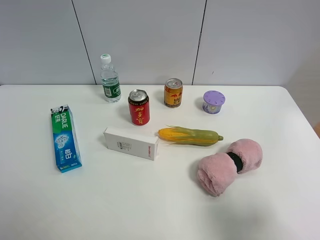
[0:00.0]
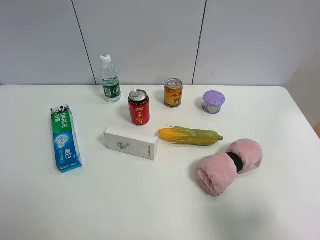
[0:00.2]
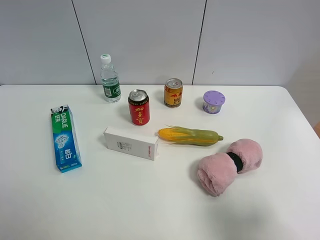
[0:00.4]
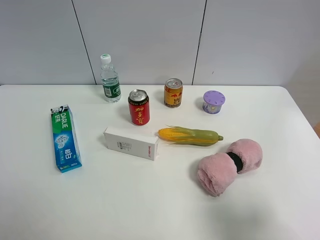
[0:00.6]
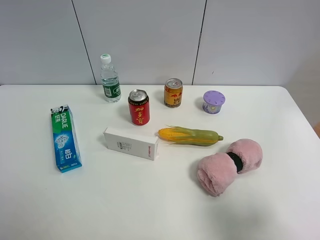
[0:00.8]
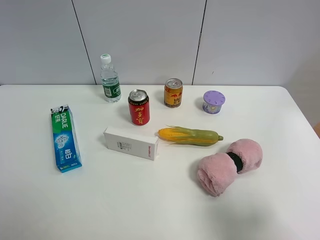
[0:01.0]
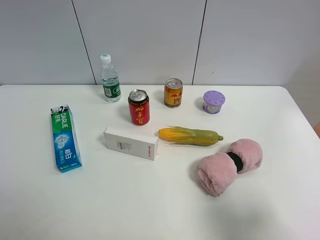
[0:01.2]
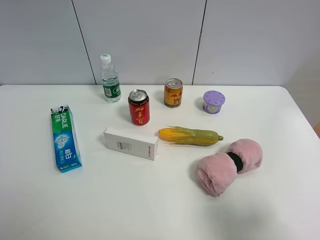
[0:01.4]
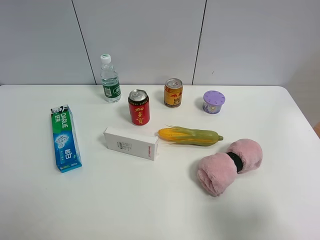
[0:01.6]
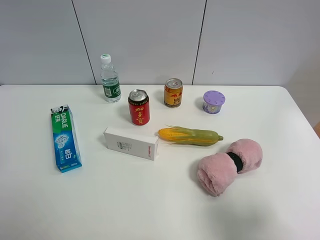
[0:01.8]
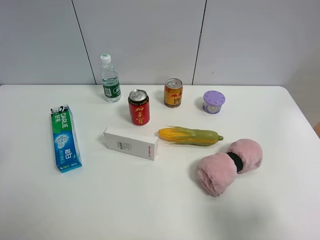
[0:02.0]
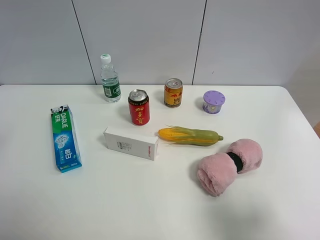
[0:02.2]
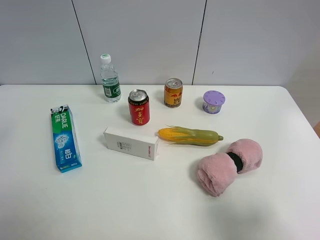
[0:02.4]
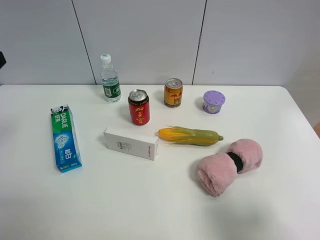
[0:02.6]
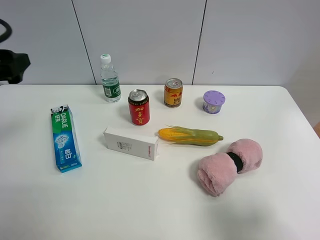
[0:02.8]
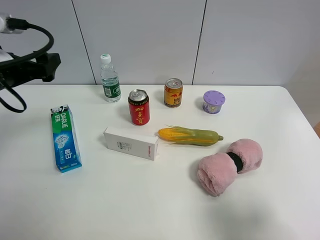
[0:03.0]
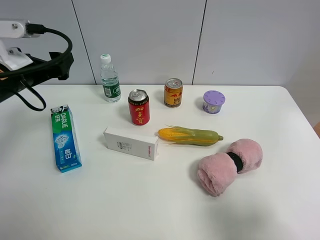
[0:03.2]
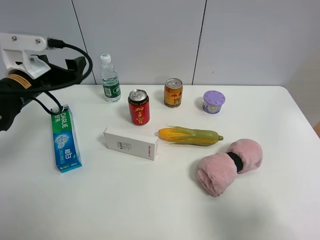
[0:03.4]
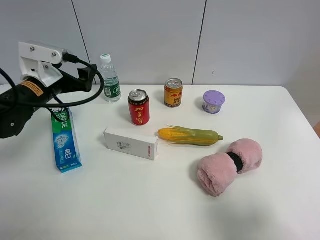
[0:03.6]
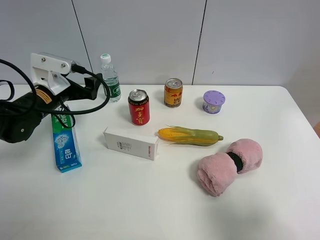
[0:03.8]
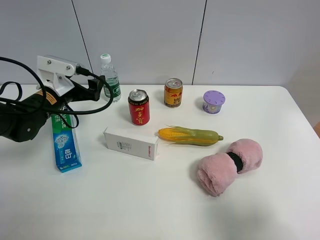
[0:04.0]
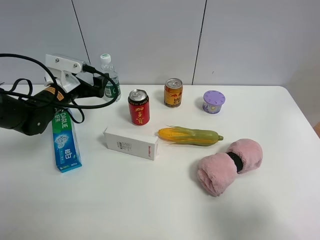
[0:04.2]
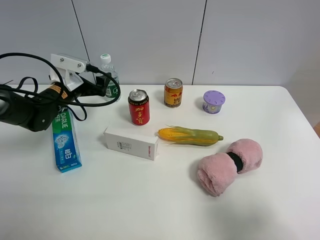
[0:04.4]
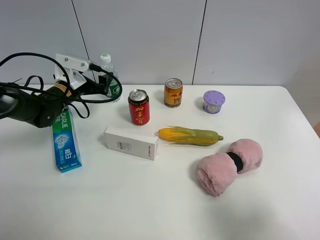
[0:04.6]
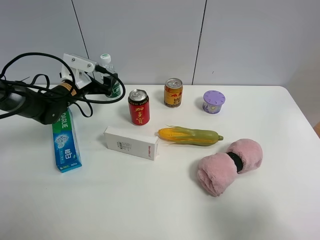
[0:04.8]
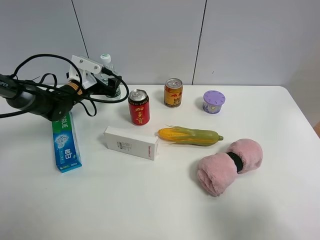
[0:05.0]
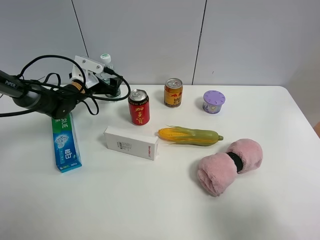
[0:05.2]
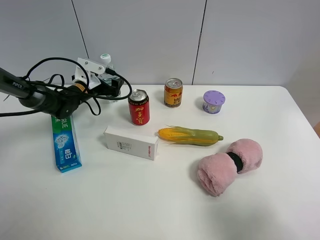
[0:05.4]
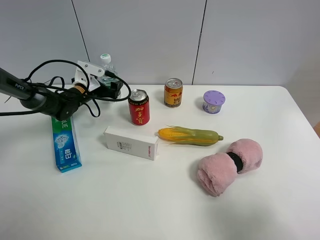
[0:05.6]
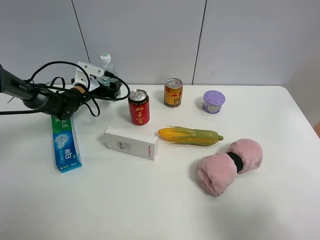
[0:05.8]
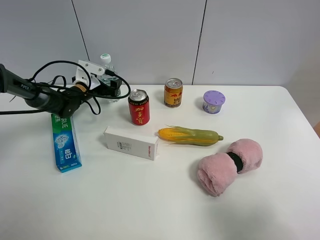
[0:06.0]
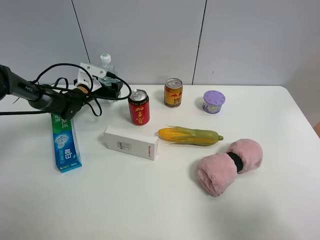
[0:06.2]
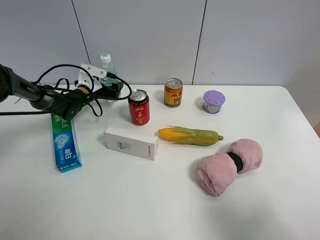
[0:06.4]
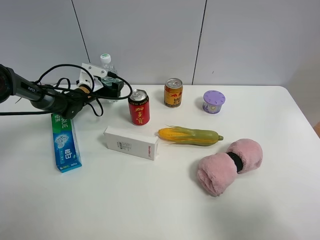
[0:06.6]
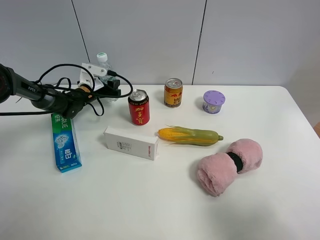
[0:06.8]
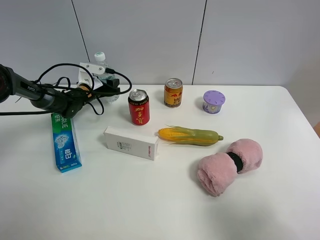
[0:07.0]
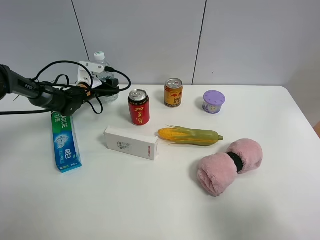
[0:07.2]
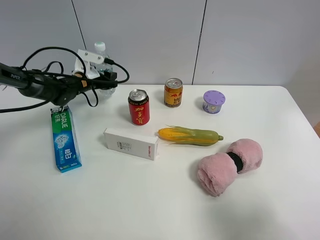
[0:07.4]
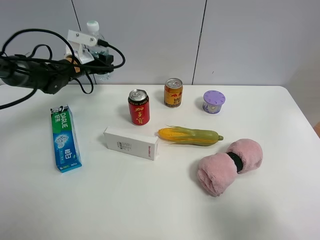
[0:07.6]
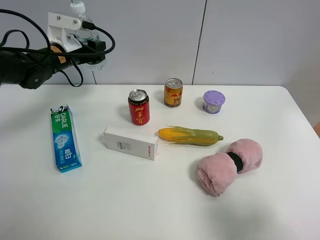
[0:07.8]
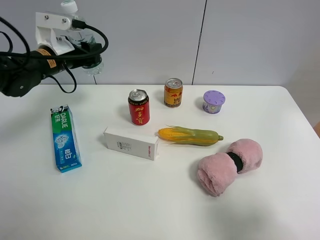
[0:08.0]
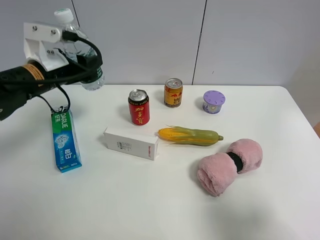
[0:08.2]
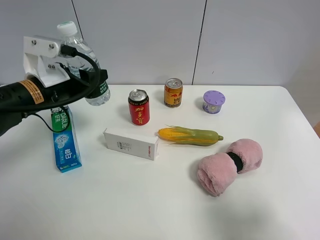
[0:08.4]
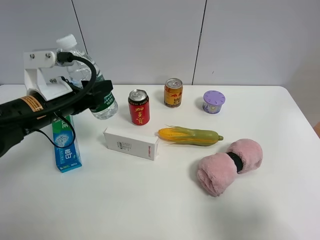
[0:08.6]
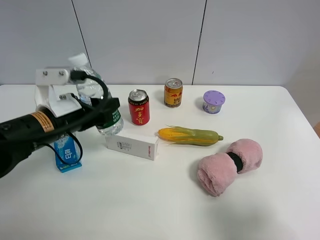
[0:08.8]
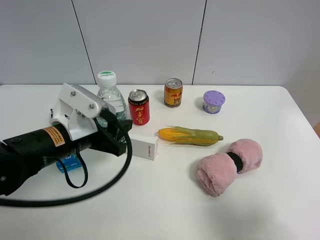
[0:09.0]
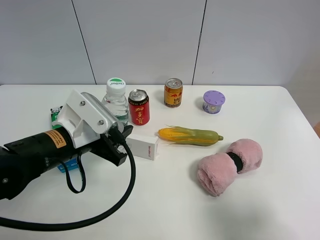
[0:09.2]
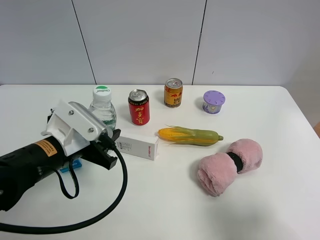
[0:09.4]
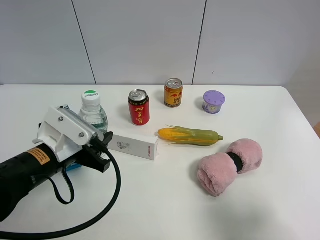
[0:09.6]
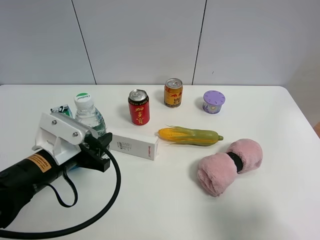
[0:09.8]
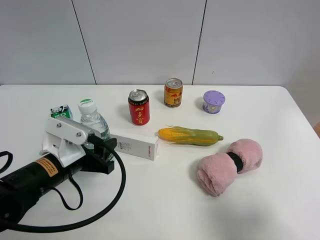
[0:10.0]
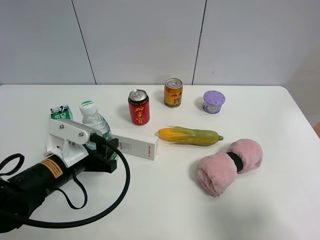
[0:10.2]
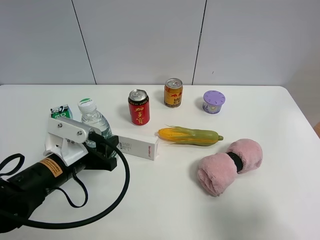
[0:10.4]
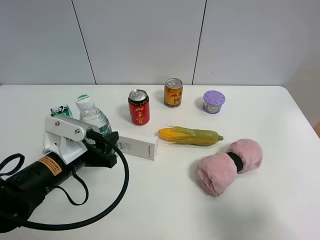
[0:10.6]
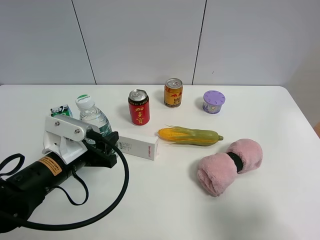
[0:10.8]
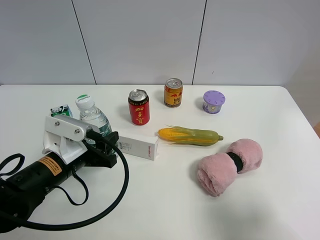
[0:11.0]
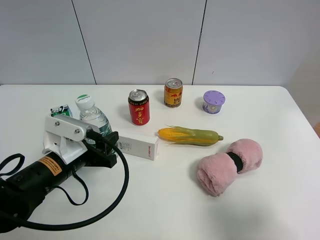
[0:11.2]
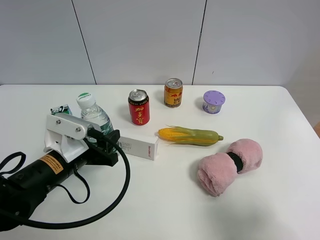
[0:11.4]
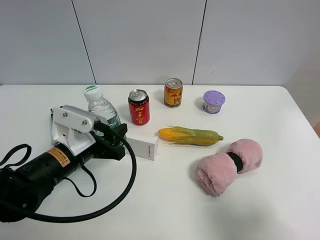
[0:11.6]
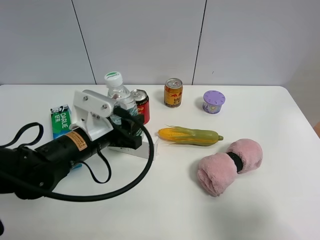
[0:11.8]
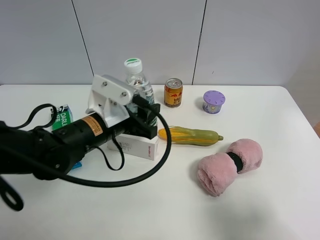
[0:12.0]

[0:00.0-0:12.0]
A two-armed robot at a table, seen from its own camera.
Task of the whole recording: the gripper move the object.
Step, 0:00.0 to 0:06.8: Grasp the YiBao mineral water with the left gripper.
0:01.6 to 0:03.0: The left gripper goes about 25 cm forward.
0:03.0 to 0:04.4: The left gripper is displaced downward and forward by approximately 15 cm.
0:04.4 to 0:06.0: The left gripper shifts roughly 10 cm forward and downward.
0:06.0 to 0:07.6: The left gripper moves upward, approximately 10 cm, and closes its fingers.
0:07.6 to 0:09.0: The left gripper moves backward, roughly 25 cm.
0:09.0 to 0:10.4: The left gripper goes some 5 cm downward.
0:10.4 to 0:12.0: The left gripper shifts roughly 10 cm to the right, forward and upward.

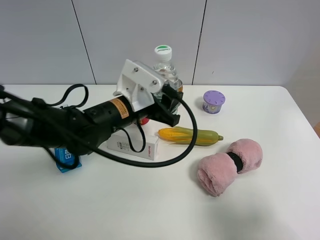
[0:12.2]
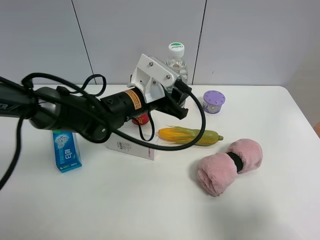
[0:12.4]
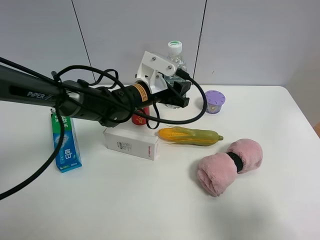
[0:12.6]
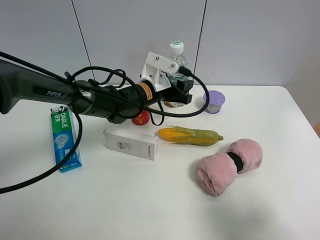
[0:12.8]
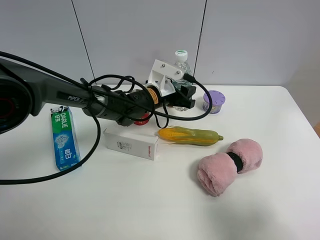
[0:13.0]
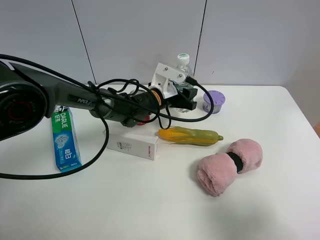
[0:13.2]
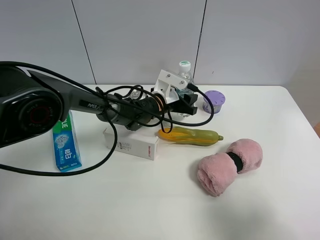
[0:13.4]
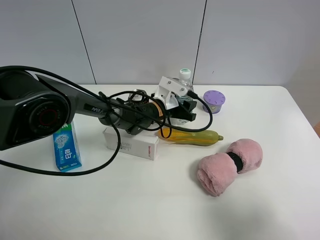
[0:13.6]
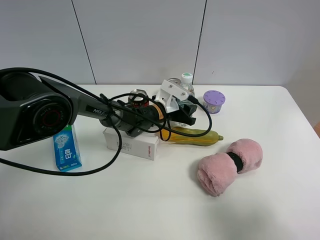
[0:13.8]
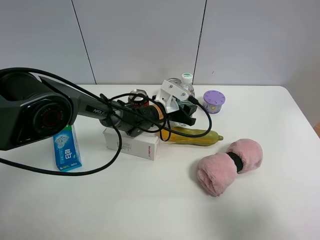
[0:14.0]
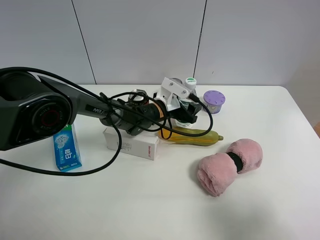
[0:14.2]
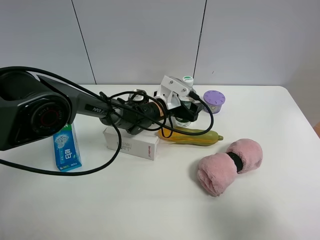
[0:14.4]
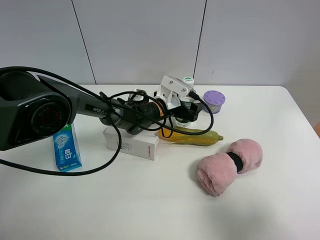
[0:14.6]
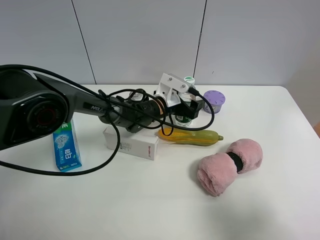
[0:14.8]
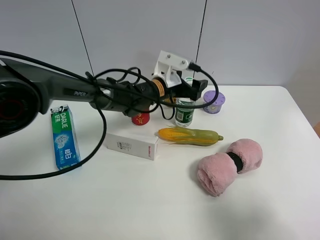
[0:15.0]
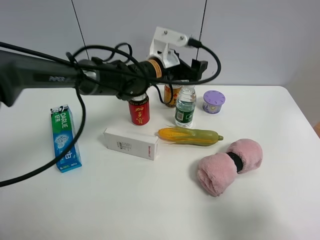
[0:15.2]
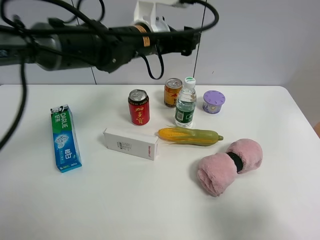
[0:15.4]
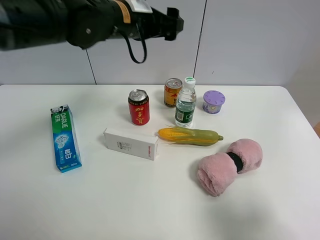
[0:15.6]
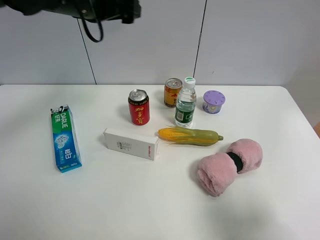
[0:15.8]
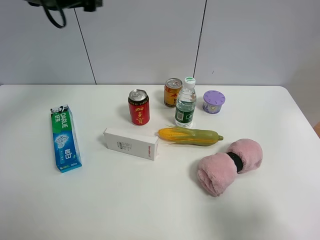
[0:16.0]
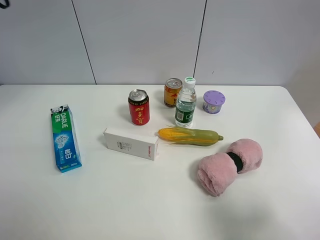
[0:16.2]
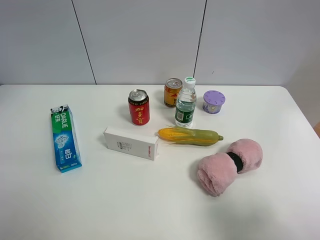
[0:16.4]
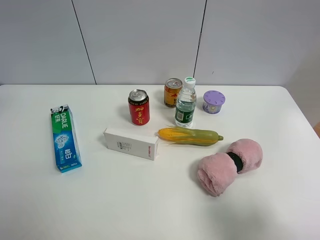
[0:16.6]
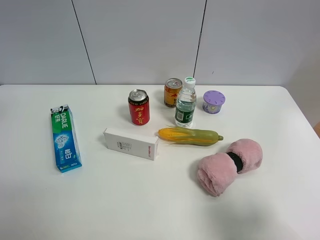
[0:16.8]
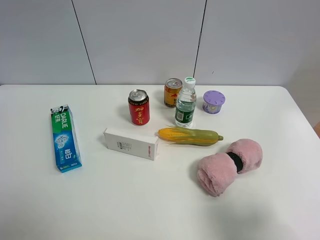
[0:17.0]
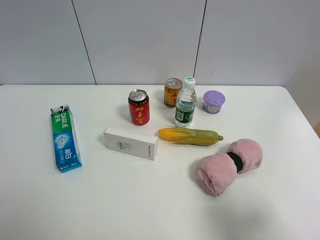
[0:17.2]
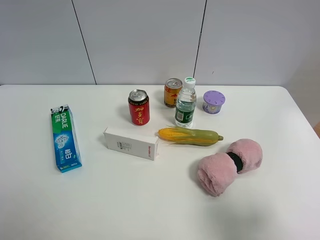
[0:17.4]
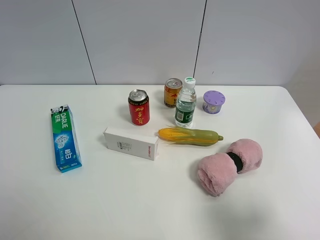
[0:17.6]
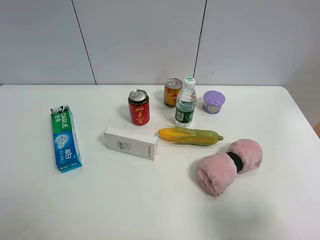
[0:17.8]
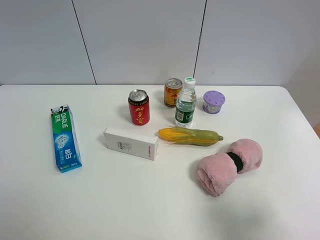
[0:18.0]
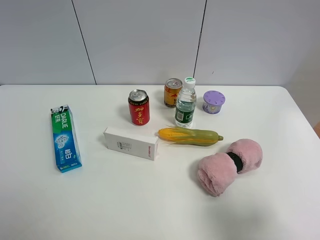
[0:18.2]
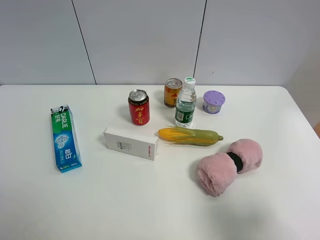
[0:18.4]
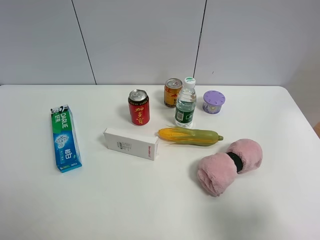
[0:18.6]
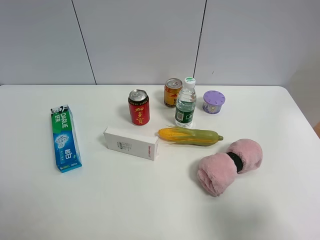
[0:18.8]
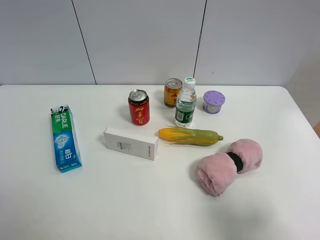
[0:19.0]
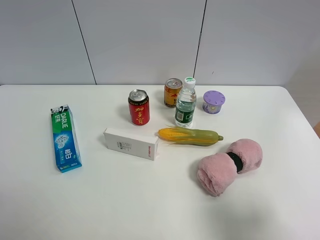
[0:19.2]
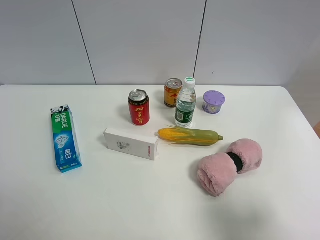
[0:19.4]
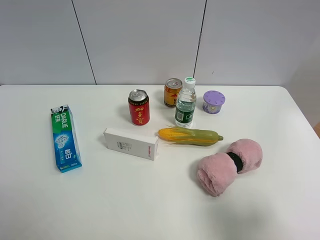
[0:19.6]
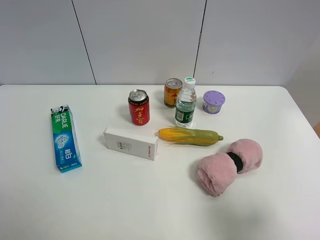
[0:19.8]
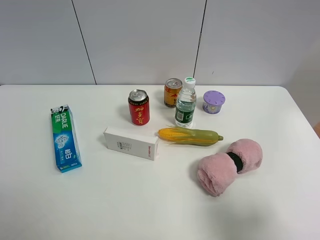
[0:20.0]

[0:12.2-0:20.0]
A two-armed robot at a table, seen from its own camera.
Task of the whole recording: the gripper move the object.
Step, 0:12.2 to 0:14.4: Place the YiBao mineral water on the table with the left gripper.
0:12.2 to 0:13.8: The left gripper travels downward, forward and to the right by about 20 cm.
0:13.8 to 0:15.4: The left gripper shifts approximately 25 cm upward, and opens up.
0:15.4 to 0:16.8: The left gripper goes approximately 35 cm to the left, upward and backward.
0:18.4 to 0:20.0: Both grippers stay about where they are.

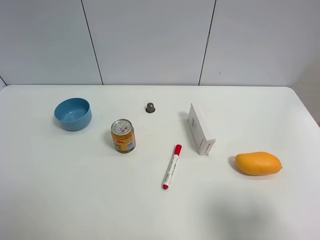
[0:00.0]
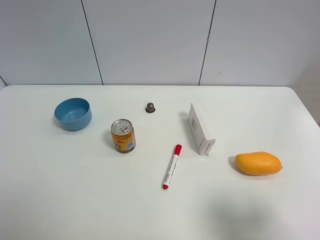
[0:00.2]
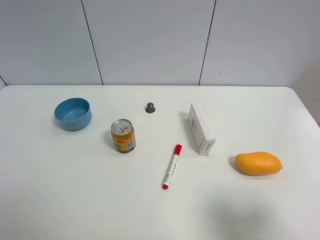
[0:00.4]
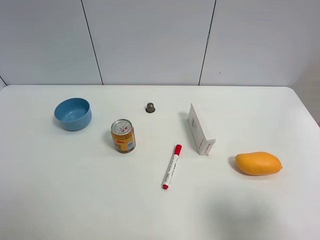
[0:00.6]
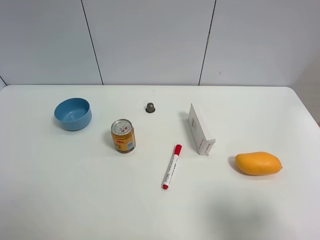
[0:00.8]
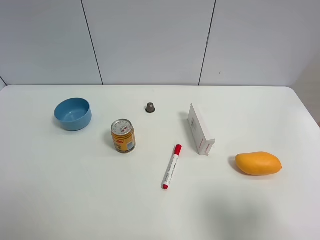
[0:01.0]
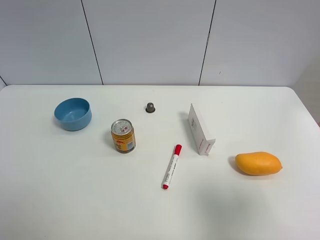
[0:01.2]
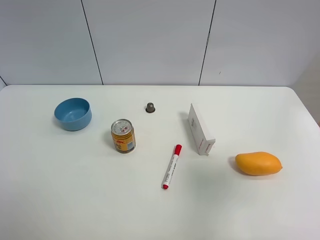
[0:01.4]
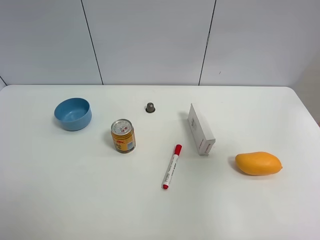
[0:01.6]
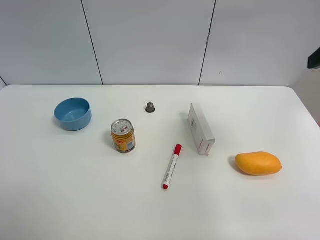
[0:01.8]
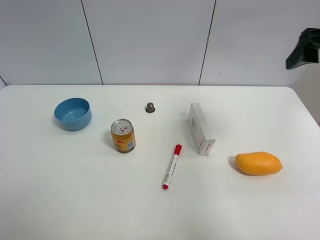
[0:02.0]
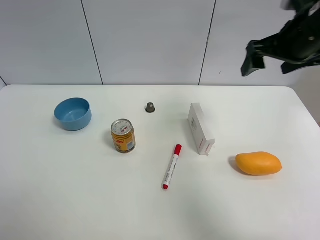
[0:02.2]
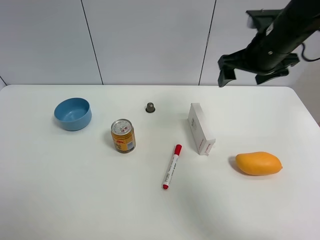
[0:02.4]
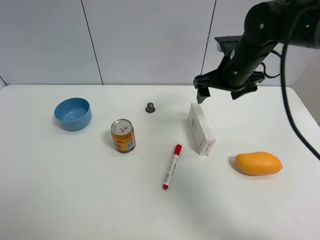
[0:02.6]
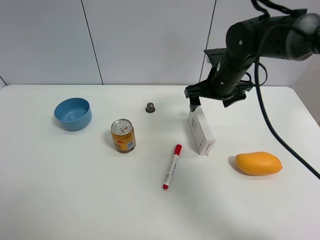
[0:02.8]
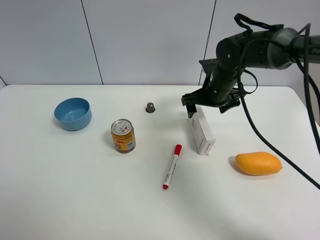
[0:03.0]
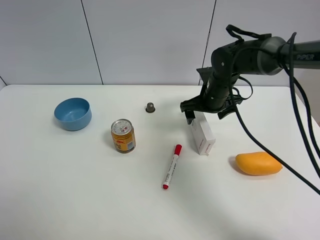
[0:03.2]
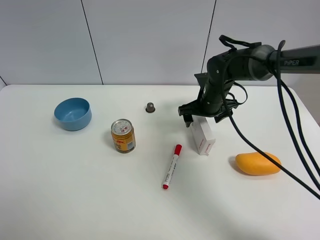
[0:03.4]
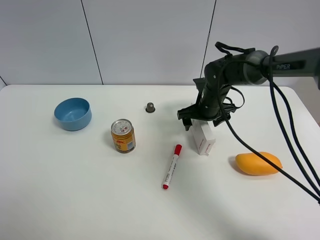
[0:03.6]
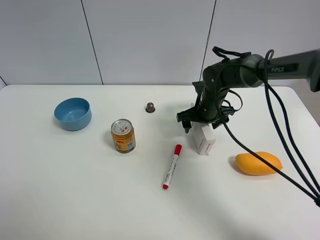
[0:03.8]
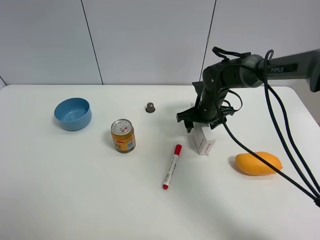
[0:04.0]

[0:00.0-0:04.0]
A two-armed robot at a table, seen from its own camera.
Task of the whole recording: the gripper move the object.
0:00.0 to 0:01.4: The right gripper travels upward and forward by about 15 cm.
0:01.4 to 0:02.6: The right gripper is displaced forward, to the left and downward by about 35 cm.
0:02.6 to 0:04.0: The right gripper shifts some 10 cm downward.
